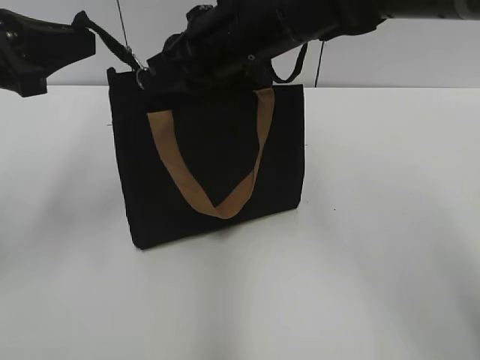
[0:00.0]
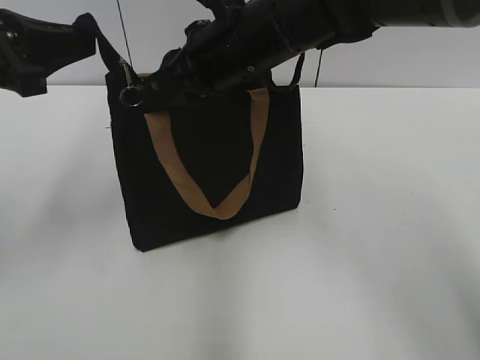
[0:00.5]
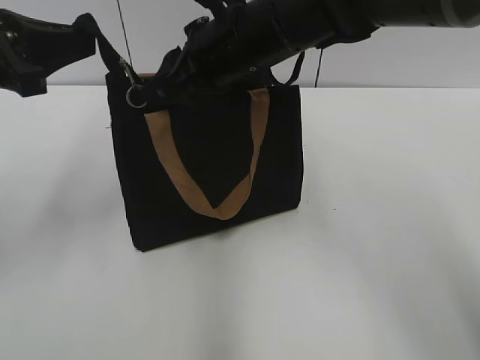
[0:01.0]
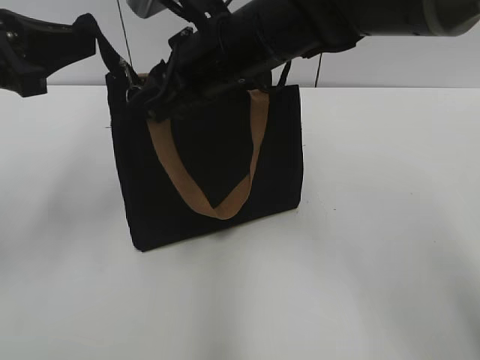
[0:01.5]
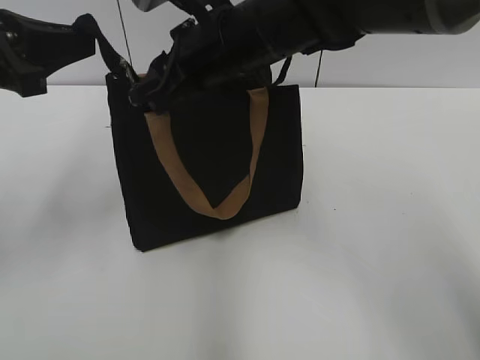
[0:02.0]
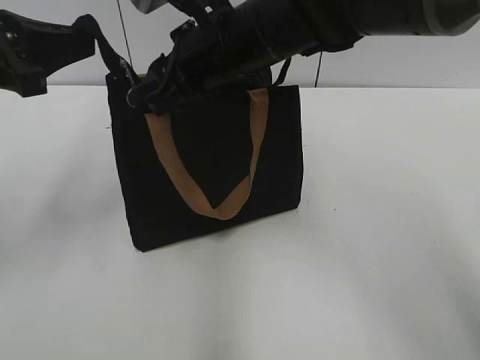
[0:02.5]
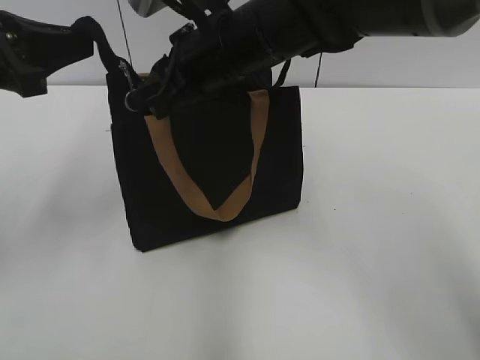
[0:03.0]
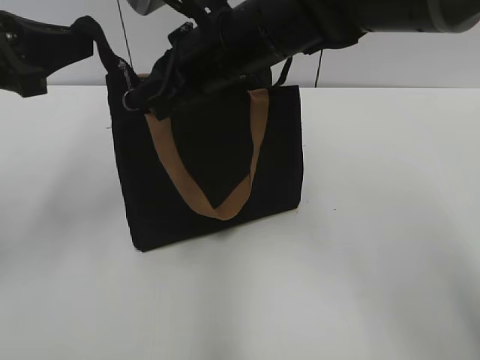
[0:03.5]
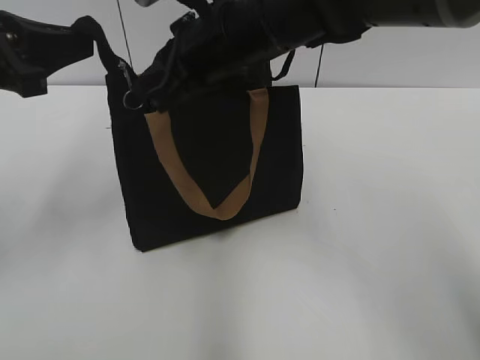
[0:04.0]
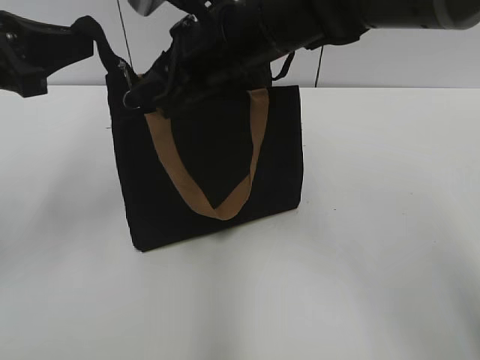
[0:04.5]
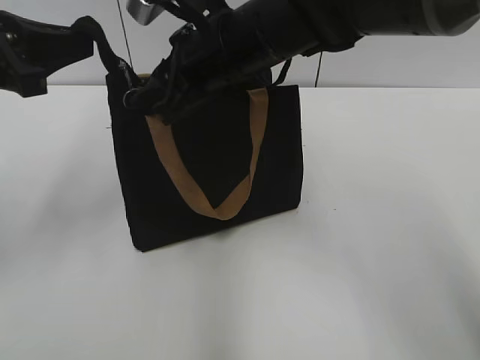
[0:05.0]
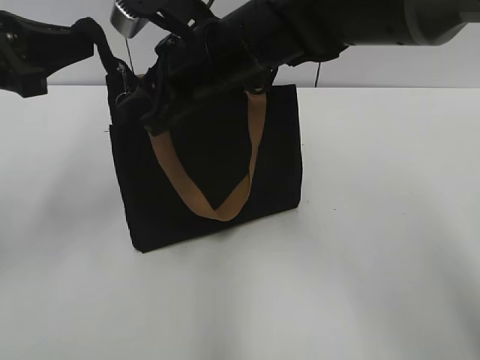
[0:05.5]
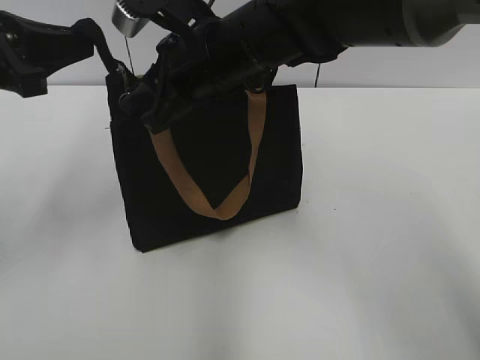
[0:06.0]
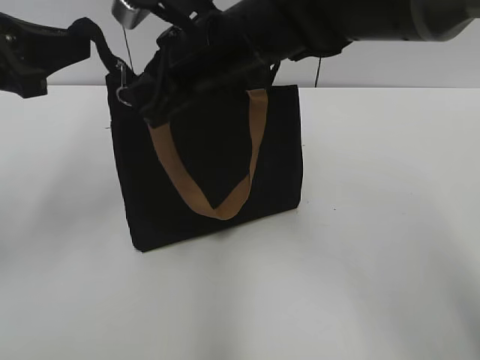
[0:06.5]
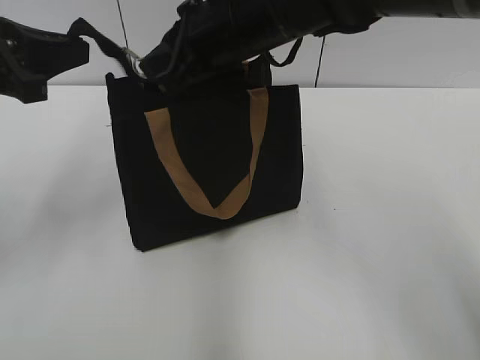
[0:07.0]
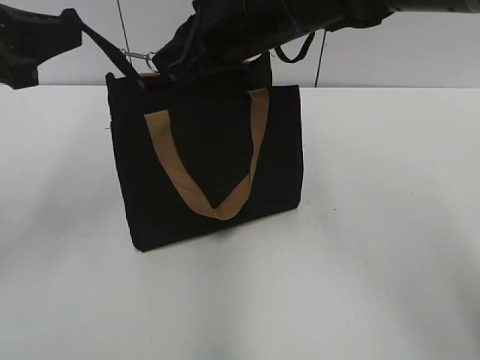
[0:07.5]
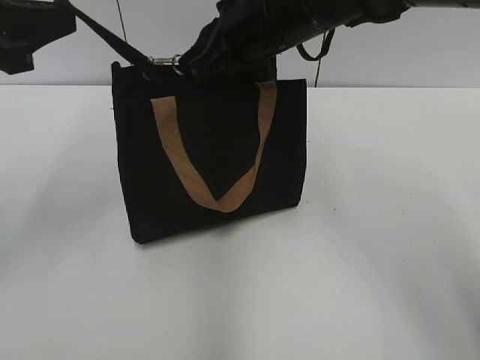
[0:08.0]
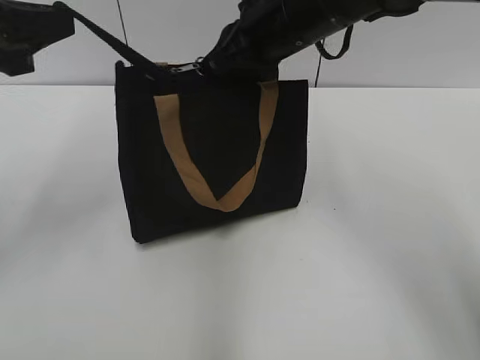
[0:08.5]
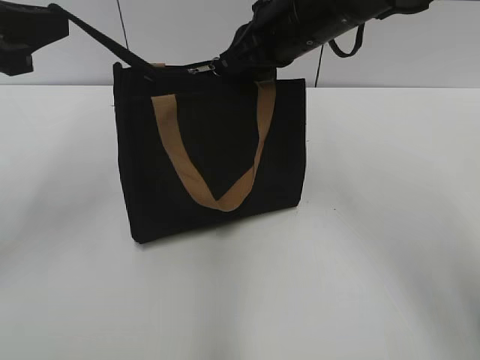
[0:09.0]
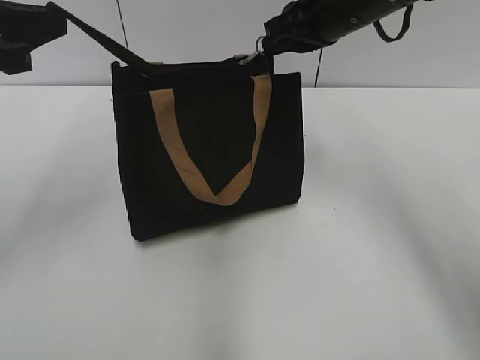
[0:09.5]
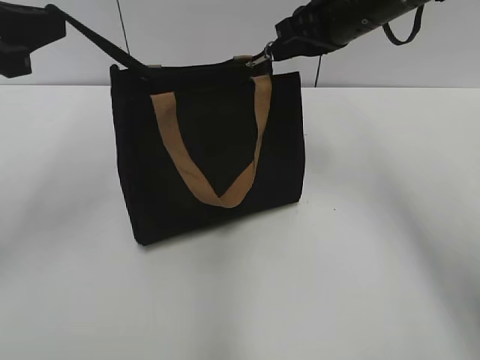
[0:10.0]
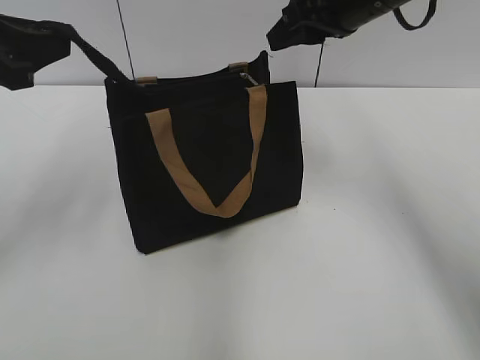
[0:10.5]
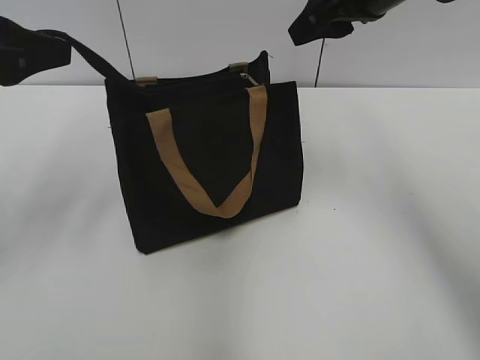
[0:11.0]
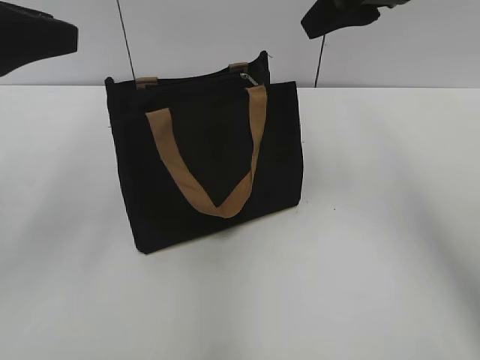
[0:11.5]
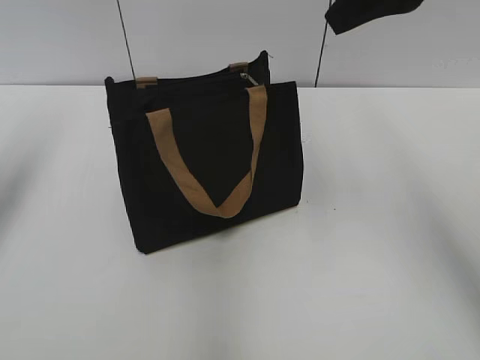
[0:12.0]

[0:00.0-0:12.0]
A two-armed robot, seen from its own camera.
Step, 0:00.0 to 0:10.0: Zip up the bag with your right hand.
Step, 0:10.5 to 0:11.0: Grab the zipper with your left hand.
0:00.0 to 0:02.0: The right gripper opens up.
0:02.0 to 0:04.0: The right gripper closes its fingers.
0:04.0 to 0:06.0: The right gripper opens its fingers.
0:06.0 to 0:08.0: The right gripper goes about 5 cm to the right, and closes its fingers.
0:08.0 to 0:10.0: The right gripper heads to the right, covering some 10 cm.
0:10.0 to 0:12.0: The left gripper moves to the left, some 5 cm, and opens its fingers. Meanwhile the right gripper moves upward and backward, approximately 15 cm, and opens.

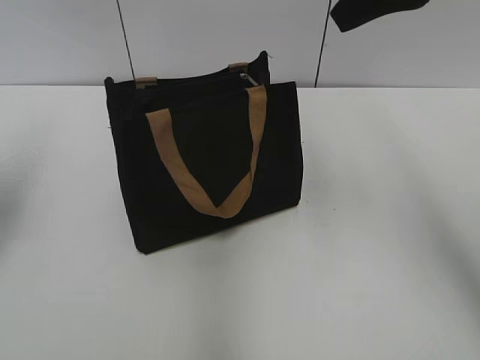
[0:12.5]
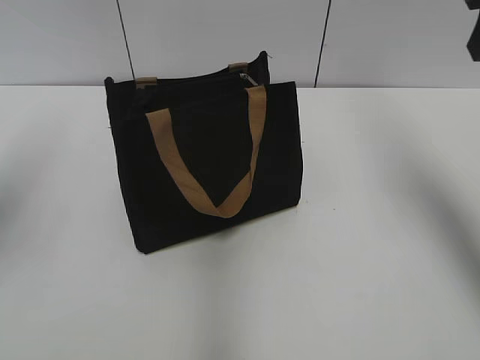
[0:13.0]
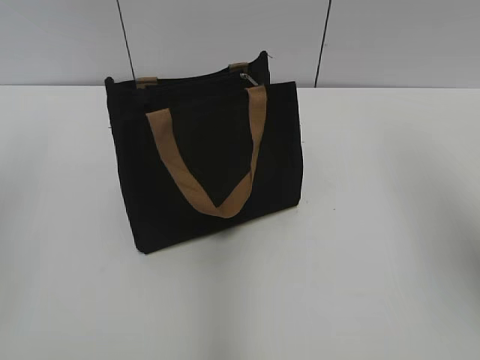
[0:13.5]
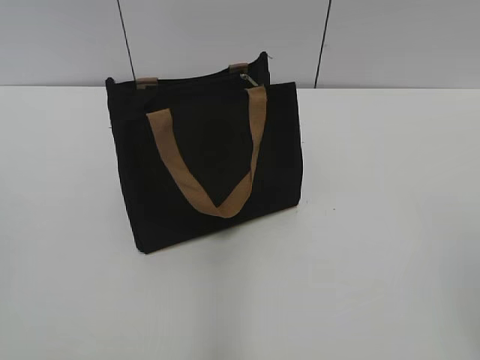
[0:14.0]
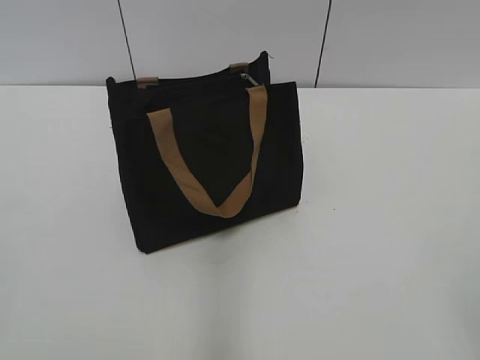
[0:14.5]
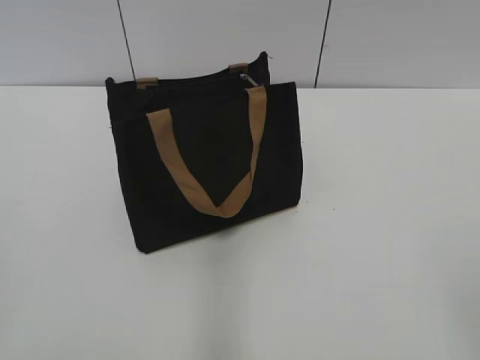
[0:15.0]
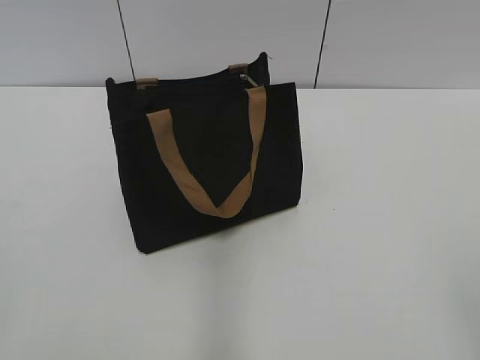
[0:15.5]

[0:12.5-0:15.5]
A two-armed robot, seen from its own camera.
0:12.5 to 0:14.0: The right gripper moves backward and to the right, some 30 cm, while the left gripper moves backward, roughly 25 cm.

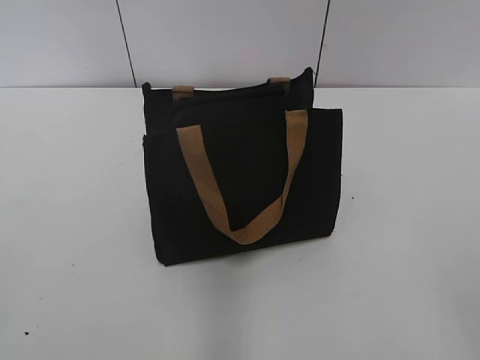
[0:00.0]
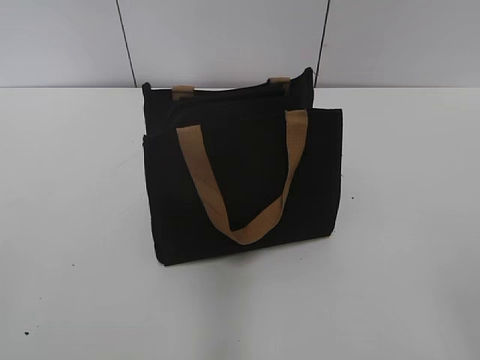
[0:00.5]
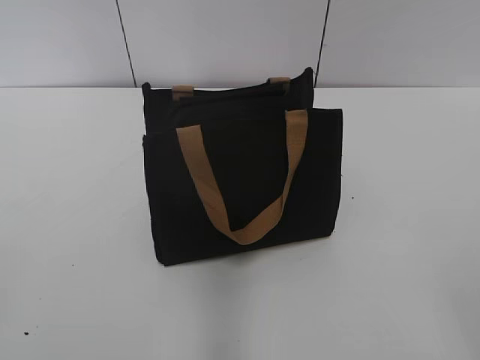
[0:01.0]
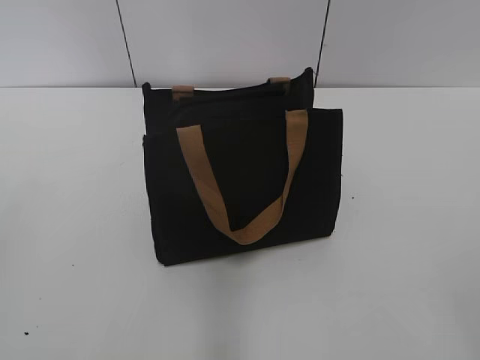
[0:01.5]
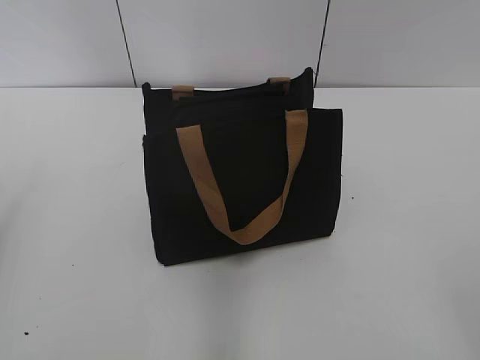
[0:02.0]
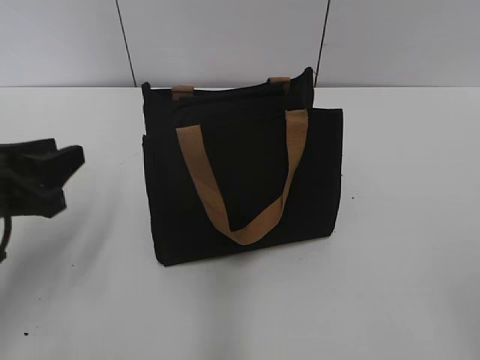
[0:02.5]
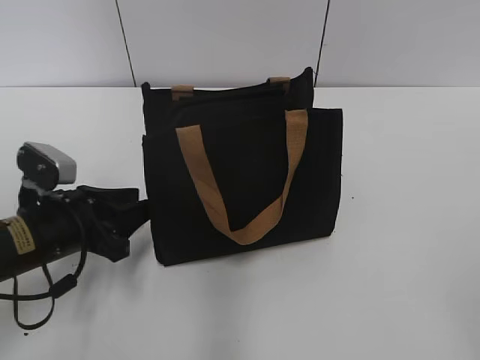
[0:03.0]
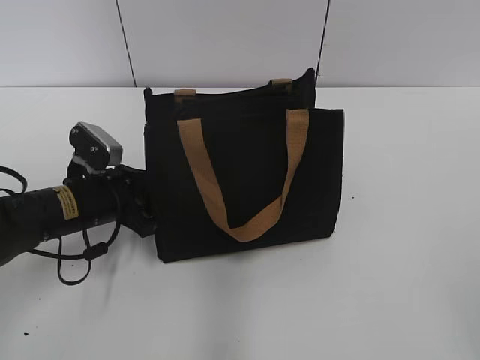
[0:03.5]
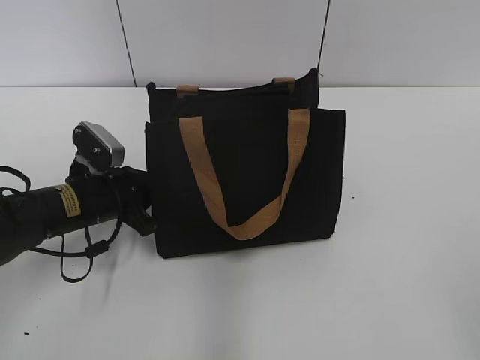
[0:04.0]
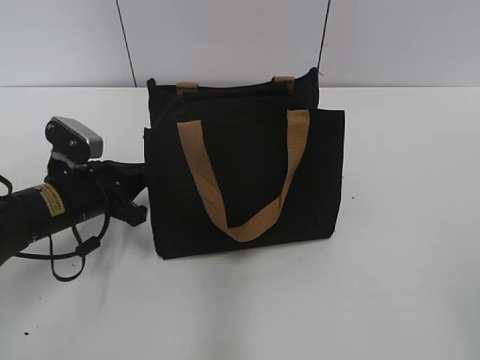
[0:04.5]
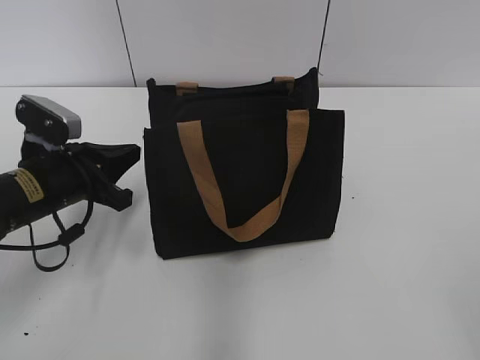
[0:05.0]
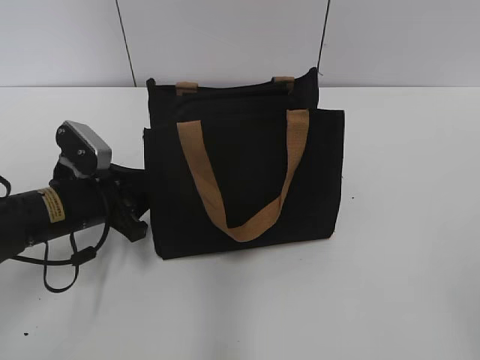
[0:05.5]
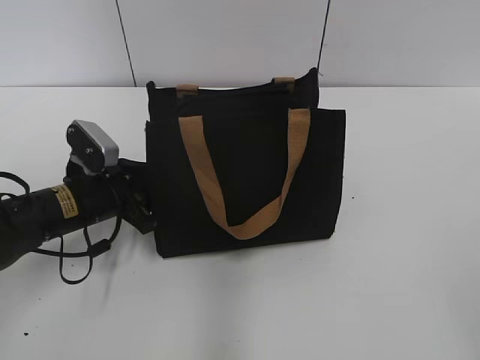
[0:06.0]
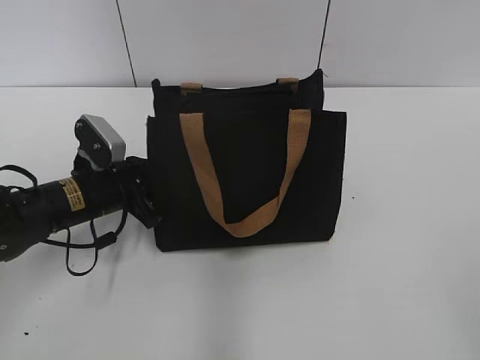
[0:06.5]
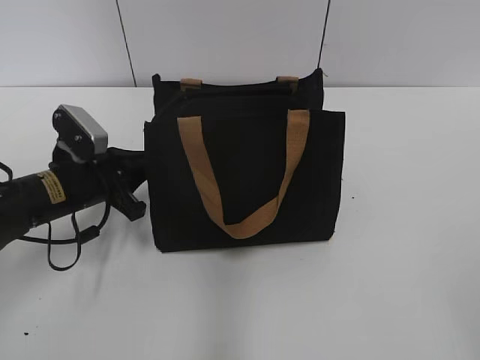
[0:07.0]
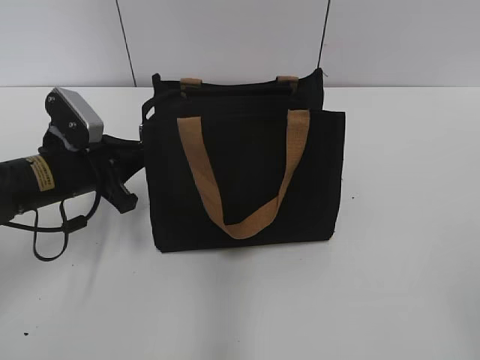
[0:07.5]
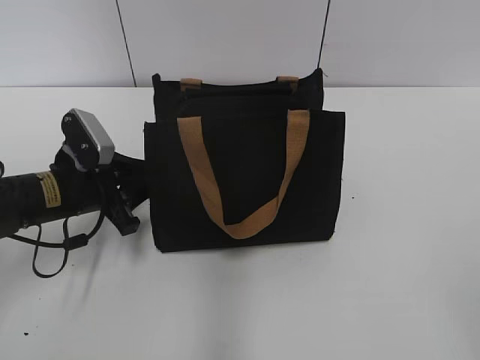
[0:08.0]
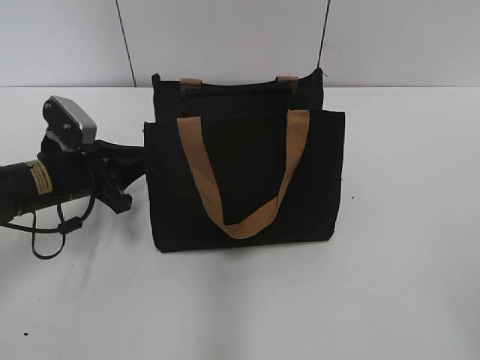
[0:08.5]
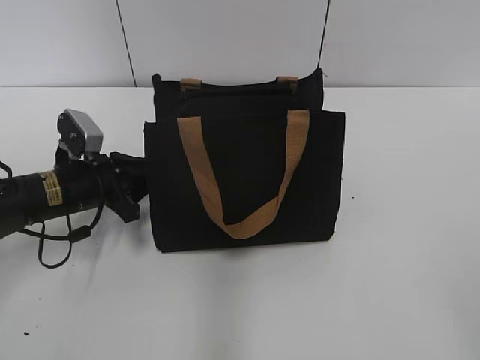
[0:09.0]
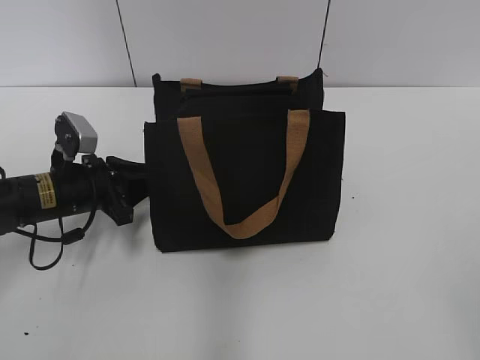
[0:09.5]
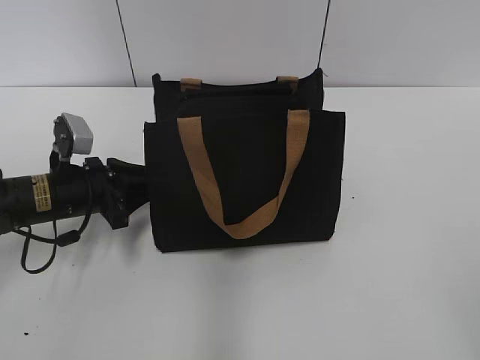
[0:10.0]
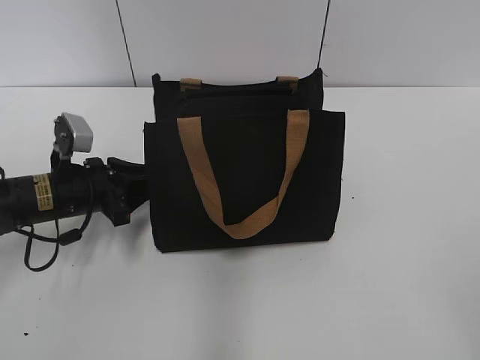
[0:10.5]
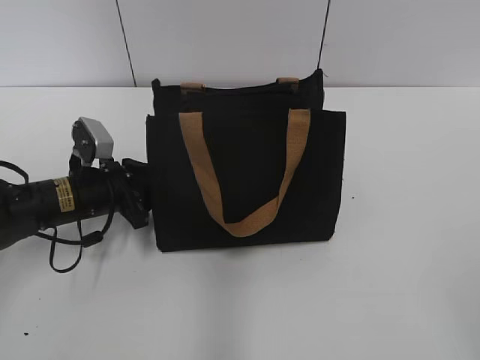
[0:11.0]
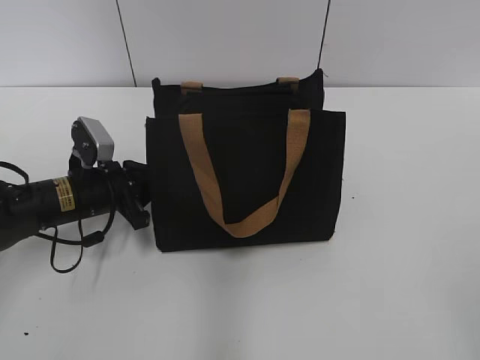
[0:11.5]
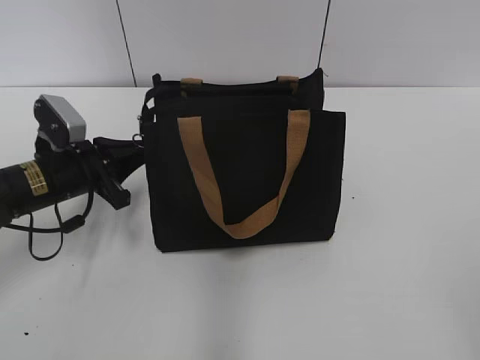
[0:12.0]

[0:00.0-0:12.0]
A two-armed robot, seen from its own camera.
0:02.0 to 0:04.0: The left gripper travels downward, forward and to the right by about 30 cm, and closes up.
0:04.0 to 0:06.0: The left gripper opens up.
0:06.0 to 0:08.0: The left gripper closes and opens again.
0:10.0 to 0:12.0: The left gripper closes.
